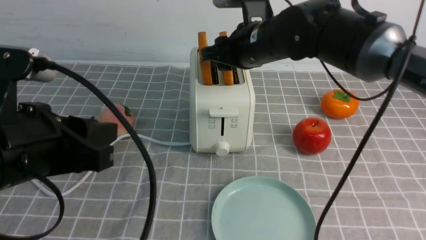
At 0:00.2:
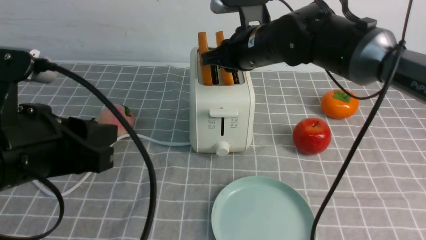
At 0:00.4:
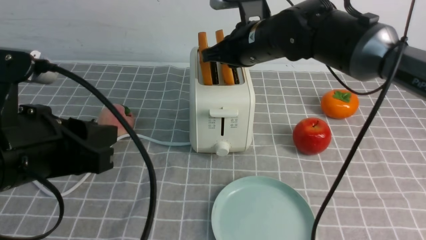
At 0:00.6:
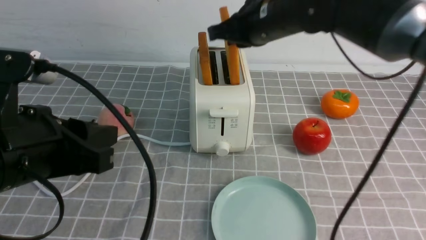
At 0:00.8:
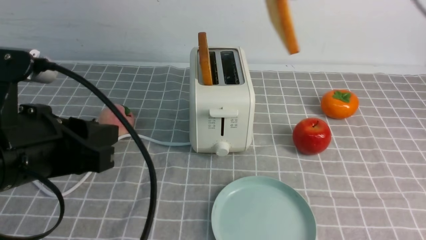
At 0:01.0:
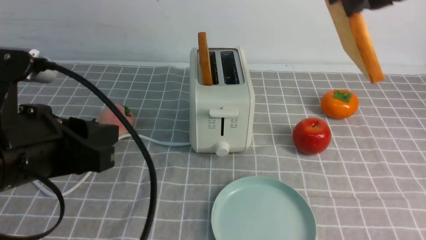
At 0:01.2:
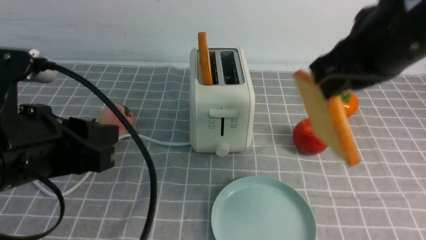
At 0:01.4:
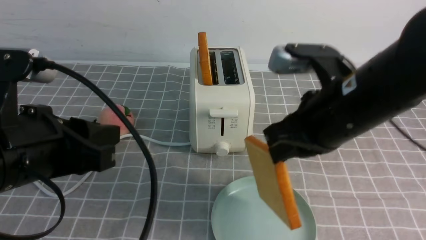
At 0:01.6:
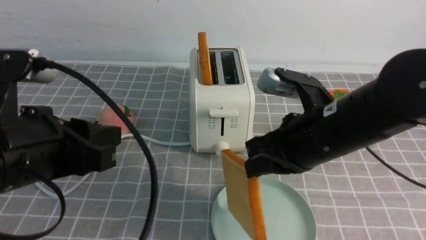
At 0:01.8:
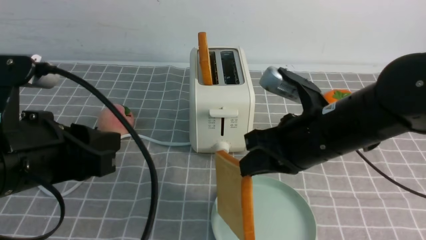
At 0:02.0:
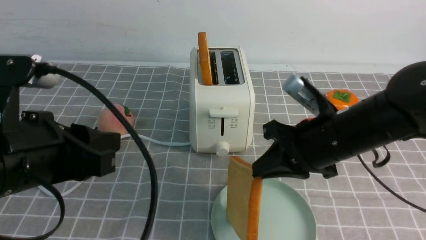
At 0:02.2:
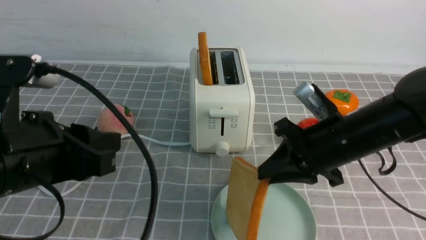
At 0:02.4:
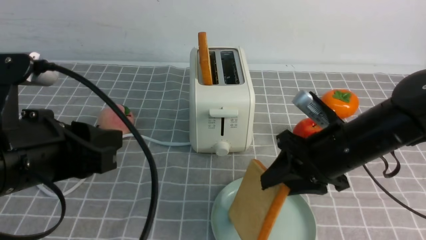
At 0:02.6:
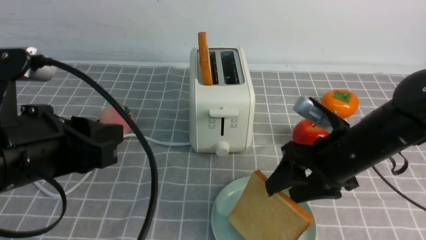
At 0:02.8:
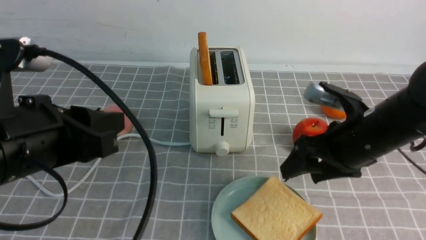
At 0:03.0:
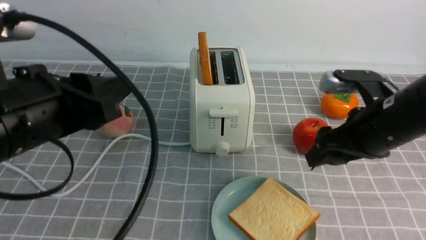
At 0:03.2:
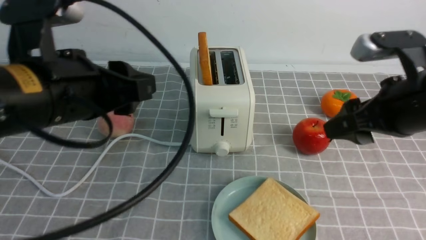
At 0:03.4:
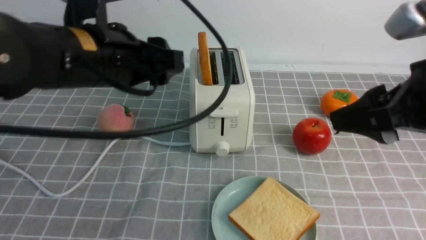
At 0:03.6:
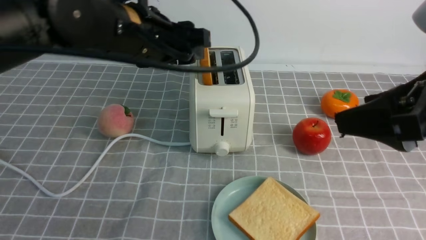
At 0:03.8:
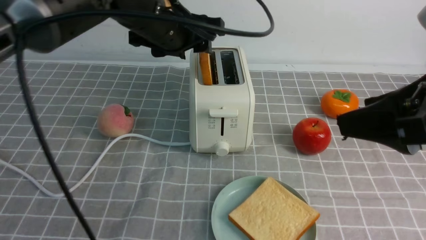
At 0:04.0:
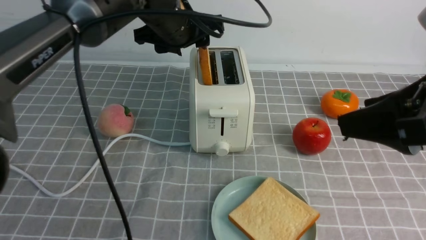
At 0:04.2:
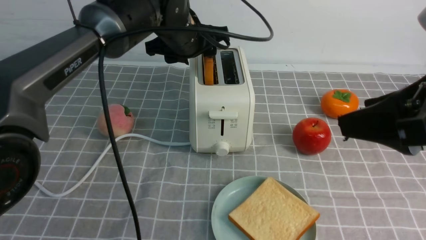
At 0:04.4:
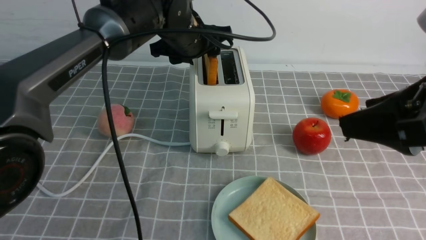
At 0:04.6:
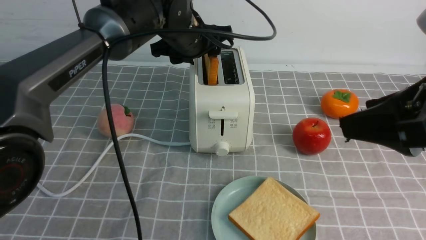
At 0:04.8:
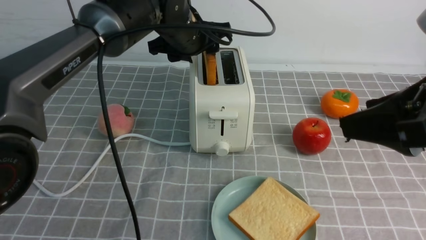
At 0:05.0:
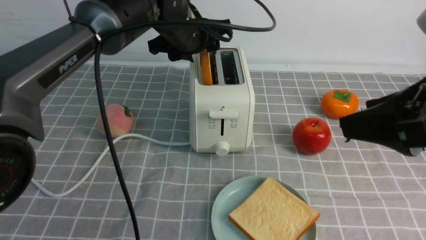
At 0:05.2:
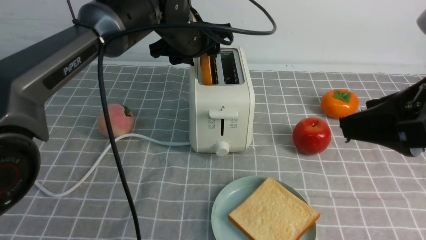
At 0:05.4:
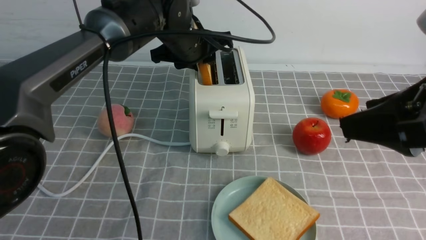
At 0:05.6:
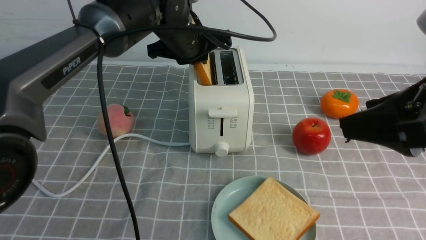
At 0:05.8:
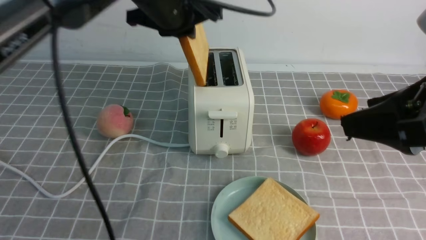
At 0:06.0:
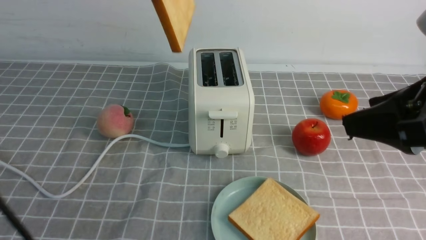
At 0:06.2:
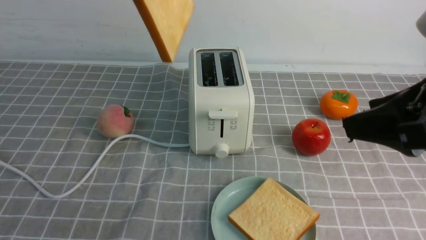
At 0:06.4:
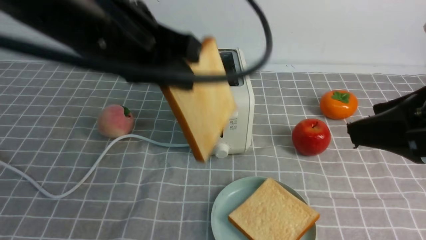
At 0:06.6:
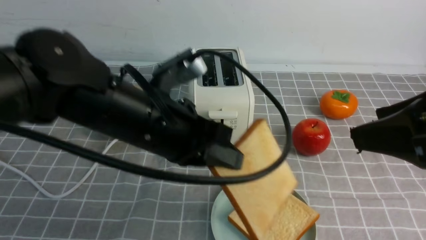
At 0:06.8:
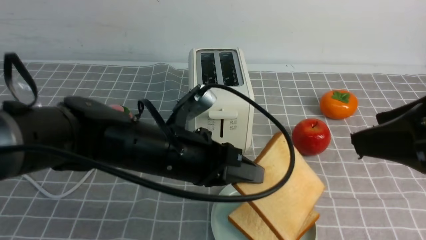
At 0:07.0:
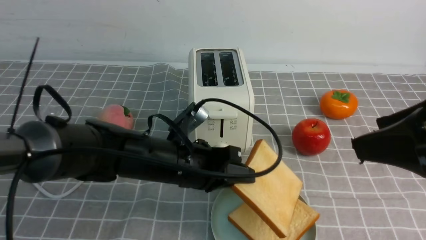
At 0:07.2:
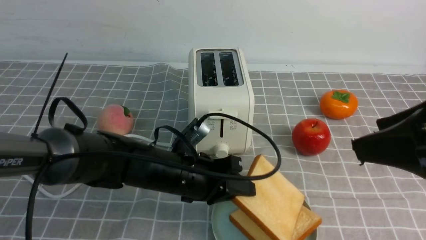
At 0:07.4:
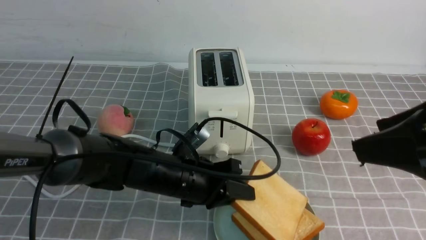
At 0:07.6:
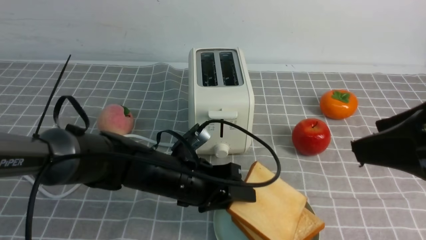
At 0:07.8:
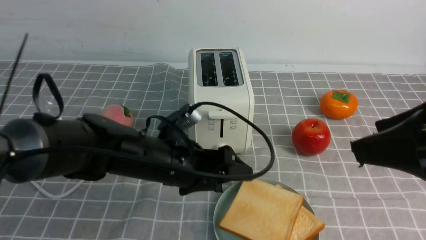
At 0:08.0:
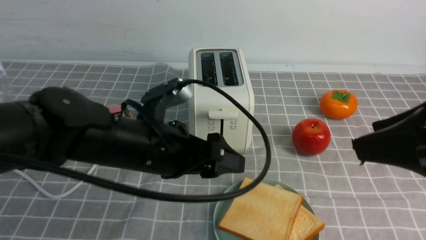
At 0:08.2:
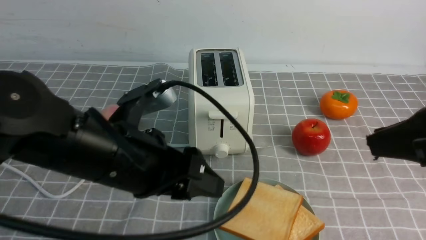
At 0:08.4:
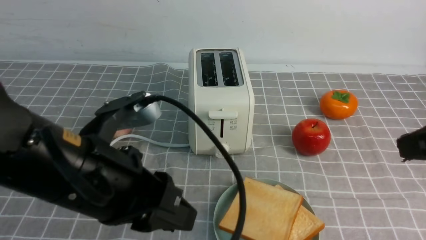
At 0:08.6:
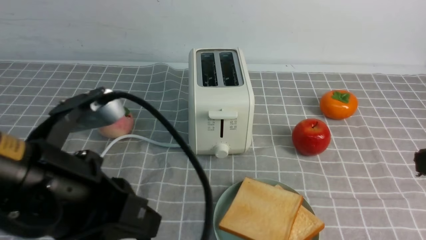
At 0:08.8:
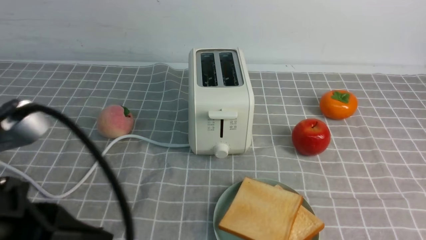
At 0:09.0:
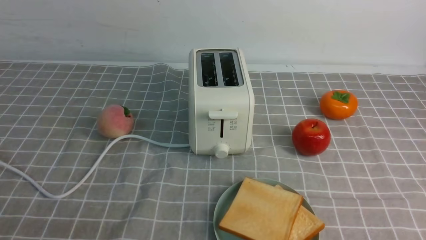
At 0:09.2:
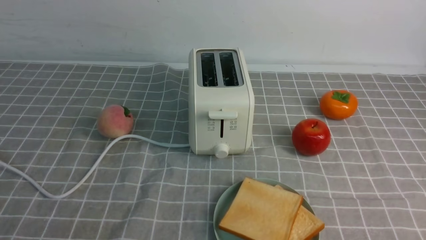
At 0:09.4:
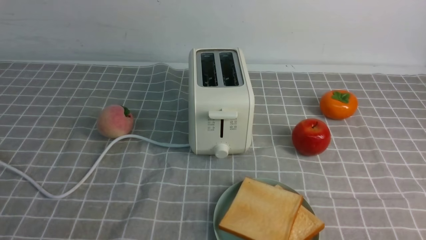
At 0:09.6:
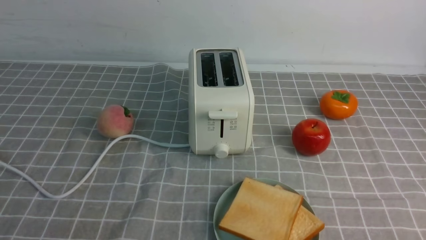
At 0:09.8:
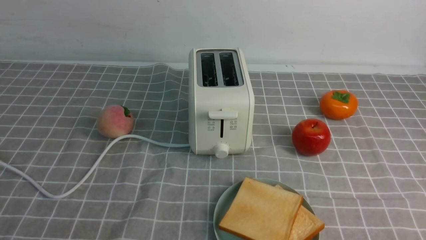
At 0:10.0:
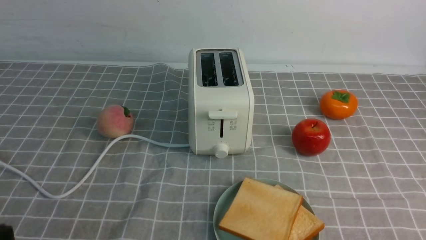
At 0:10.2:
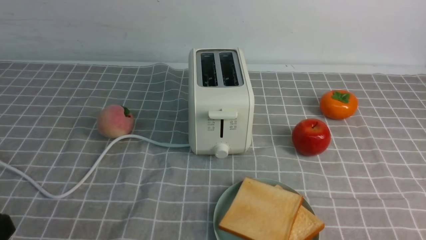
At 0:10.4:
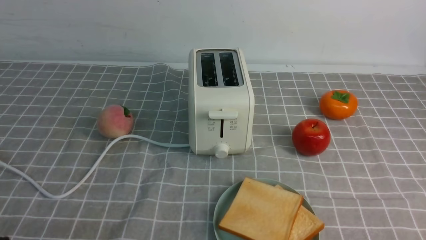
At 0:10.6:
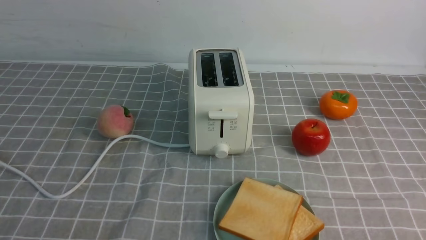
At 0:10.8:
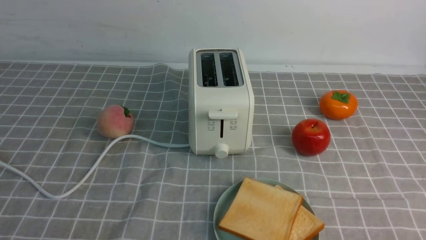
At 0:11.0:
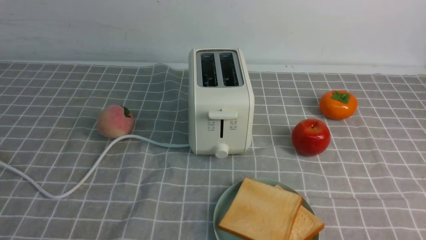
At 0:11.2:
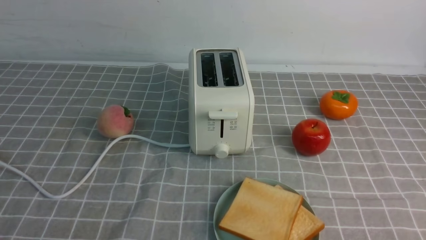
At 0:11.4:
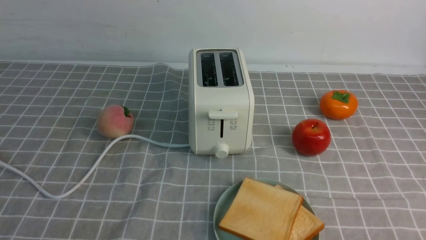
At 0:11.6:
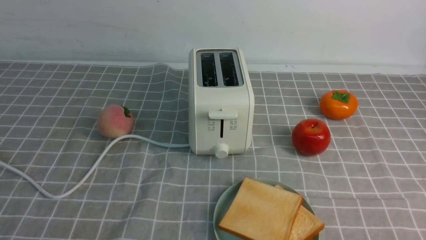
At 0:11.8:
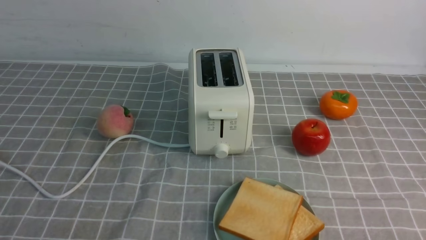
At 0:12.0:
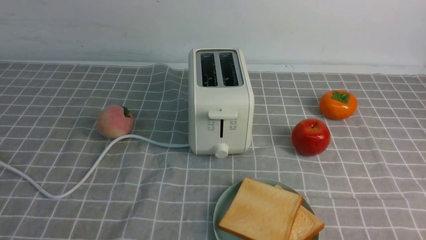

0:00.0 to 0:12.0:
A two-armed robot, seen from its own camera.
Task of the whole recording: take toasted bread from bread machine on grey coffee table place on plate.
Step, 0:00.8 to 0:02.8: use the right arm to put a slice of bread into the plate.
Step, 0:03.0 to 0:05.8: use the left arm to take out a slice of bread.
Step, 0:06.0 to 0:07.8: use the left arm to put a slice of bread into the empty plate.
0:00.0 to 0:01.6: The right gripper is displaced backward by about 15 cm, and closes up.
0:01.6 to 0:03.0: The right gripper is displaced to the right by approximately 10 cm, and opens up.
0:03.0 to 0:04.4: The right gripper moves backward and upward, about 15 cm, while the left gripper is displaced forward and to the right by some 30 cm.
0:04.4 to 0:06.0: The left gripper heads upward and backward, covering roughly 20 cm, and closes up.
0:06.0 to 0:07.6: The left gripper shifts roughly 30 cm downward, and opens up.
0:07.6 to 0:09.0: The right gripper goes approximately 15 cm downward, backward and to the right, and closes. The left gripper heads backward, upward and to the left, covering some 30 cm, and closes its fingers.

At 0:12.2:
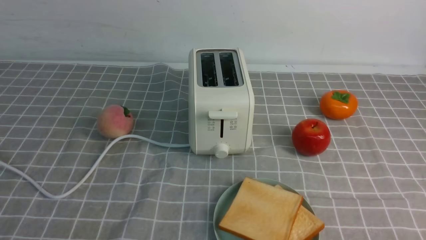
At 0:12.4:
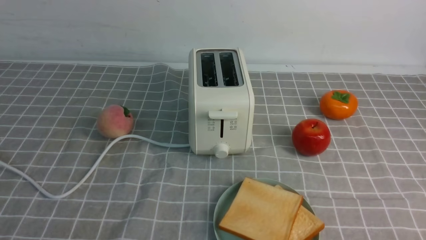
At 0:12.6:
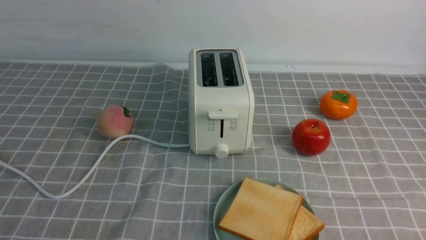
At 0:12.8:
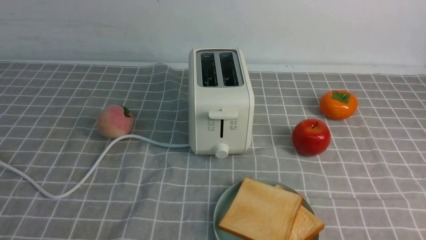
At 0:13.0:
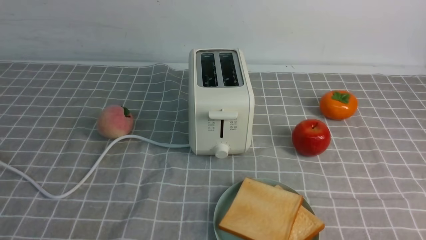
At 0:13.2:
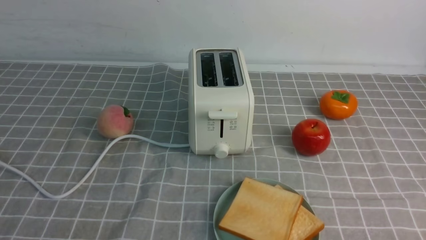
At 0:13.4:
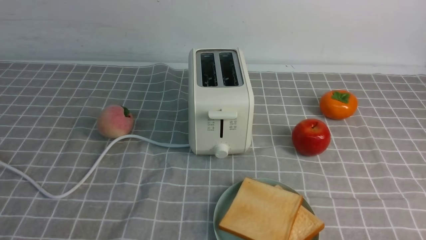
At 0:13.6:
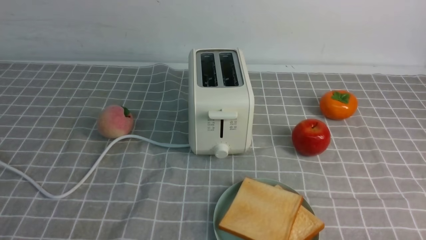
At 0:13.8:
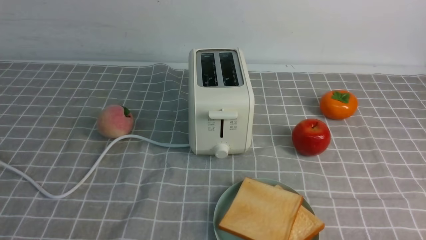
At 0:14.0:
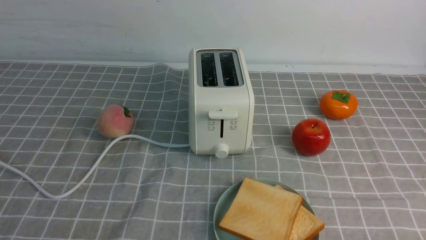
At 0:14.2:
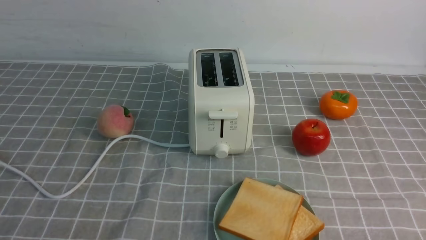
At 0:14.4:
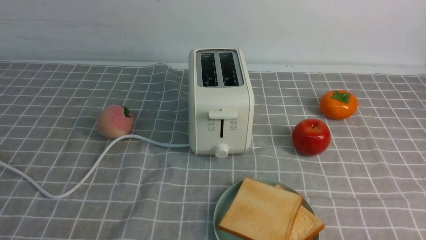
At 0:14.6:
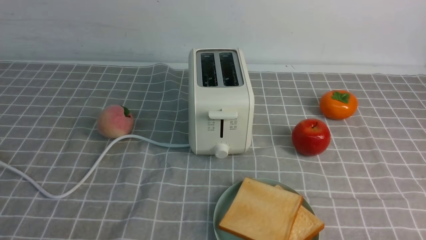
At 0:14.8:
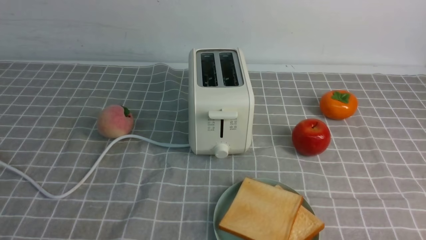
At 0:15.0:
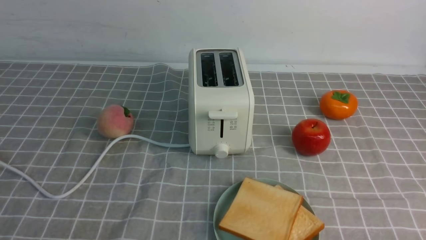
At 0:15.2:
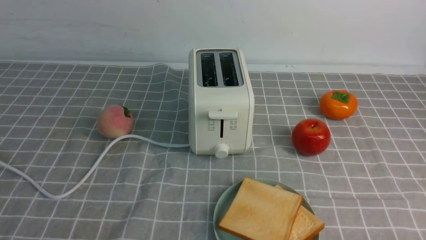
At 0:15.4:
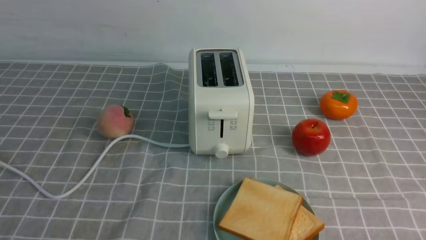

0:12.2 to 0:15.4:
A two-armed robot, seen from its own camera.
Task of the whole recording: take toasted bread from bread machine on grey coffee table place on plate.
0:13.8 to 0:15.4: The two grippers keep their place.
